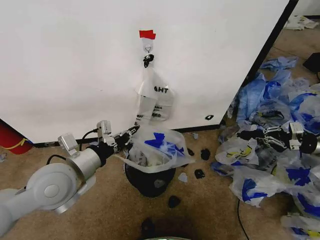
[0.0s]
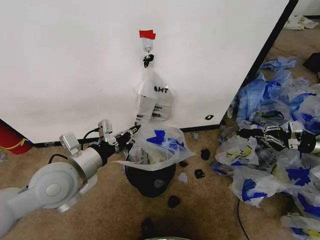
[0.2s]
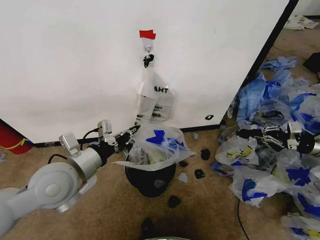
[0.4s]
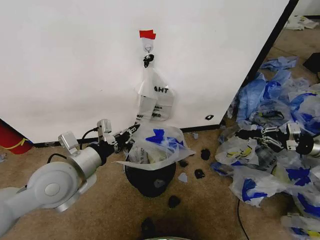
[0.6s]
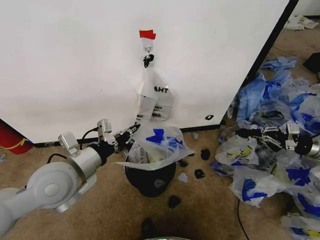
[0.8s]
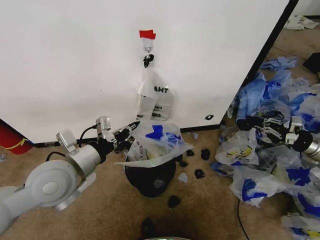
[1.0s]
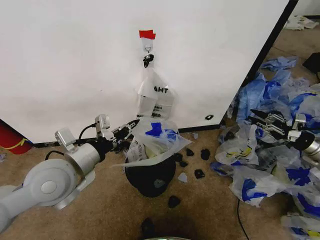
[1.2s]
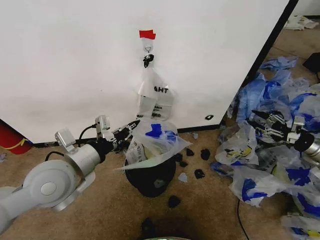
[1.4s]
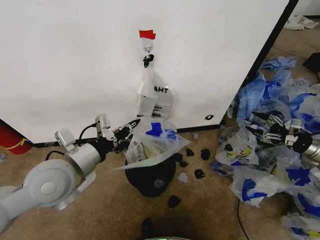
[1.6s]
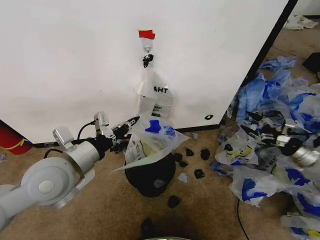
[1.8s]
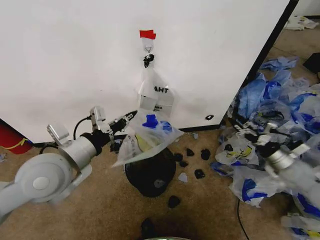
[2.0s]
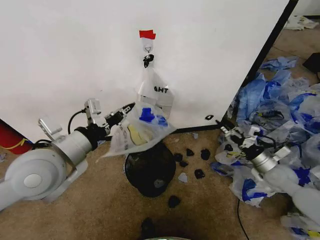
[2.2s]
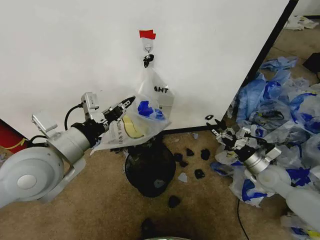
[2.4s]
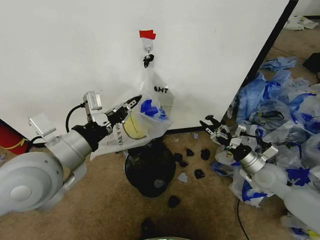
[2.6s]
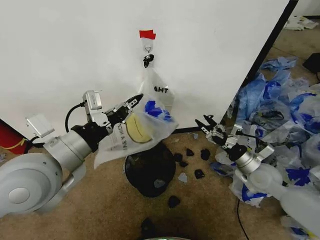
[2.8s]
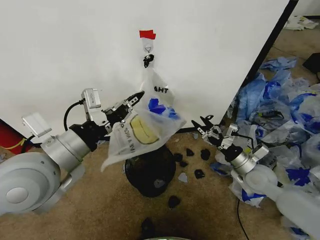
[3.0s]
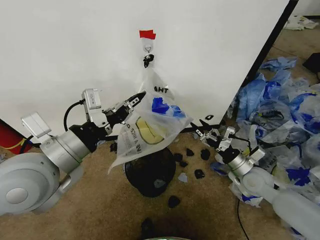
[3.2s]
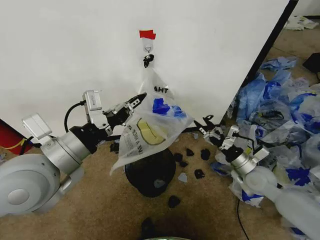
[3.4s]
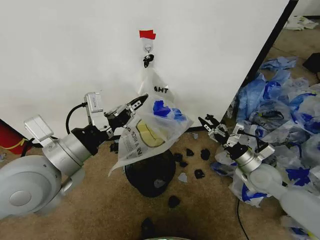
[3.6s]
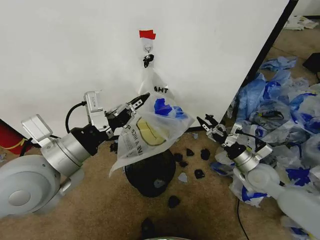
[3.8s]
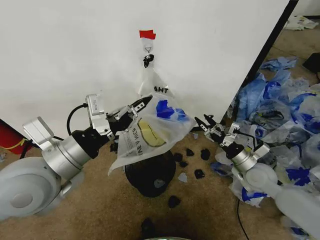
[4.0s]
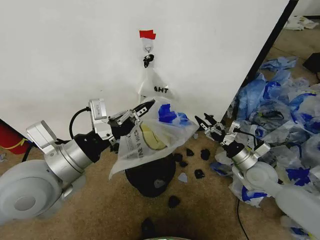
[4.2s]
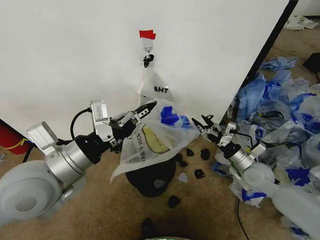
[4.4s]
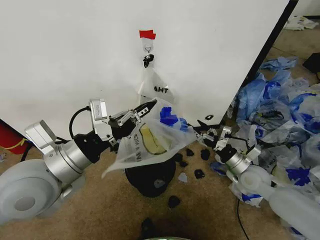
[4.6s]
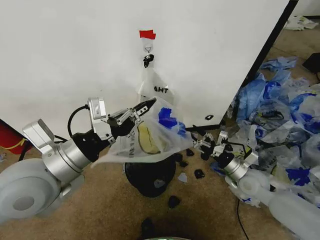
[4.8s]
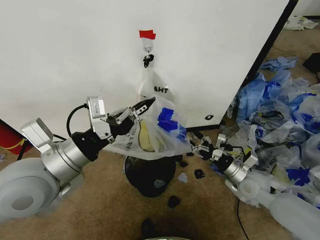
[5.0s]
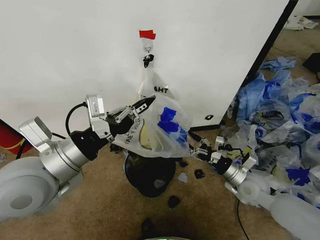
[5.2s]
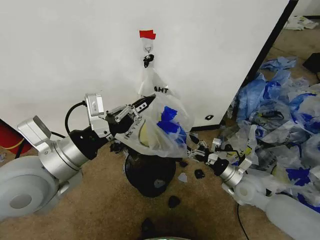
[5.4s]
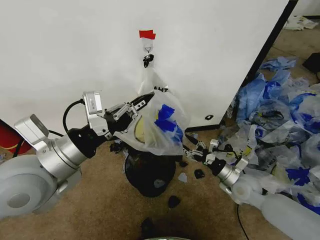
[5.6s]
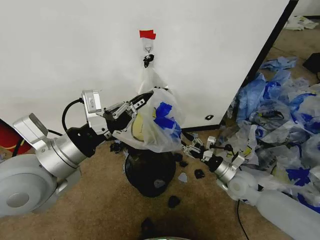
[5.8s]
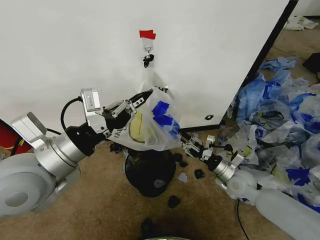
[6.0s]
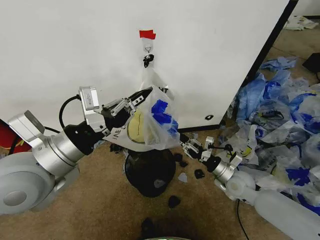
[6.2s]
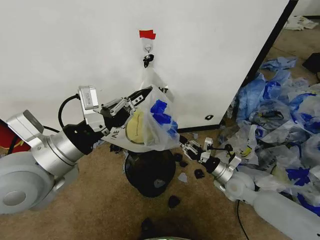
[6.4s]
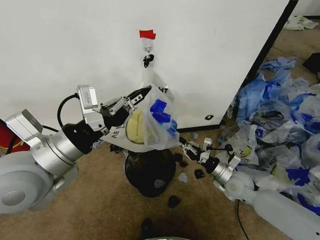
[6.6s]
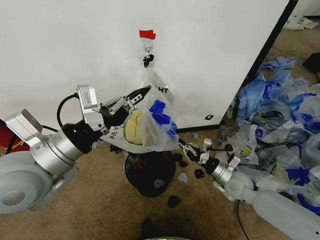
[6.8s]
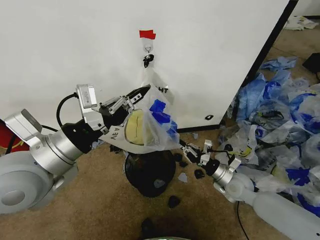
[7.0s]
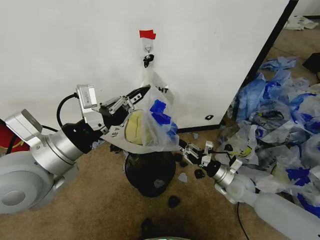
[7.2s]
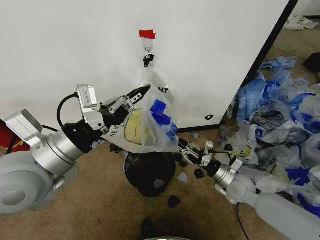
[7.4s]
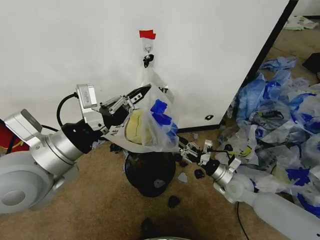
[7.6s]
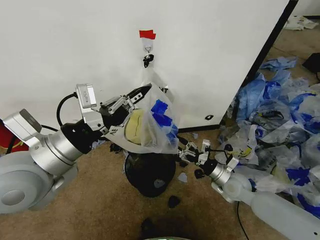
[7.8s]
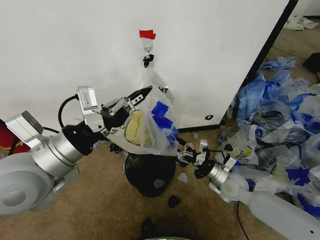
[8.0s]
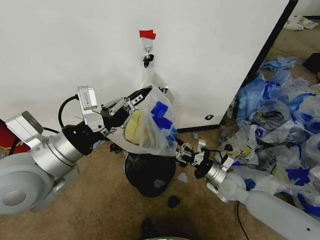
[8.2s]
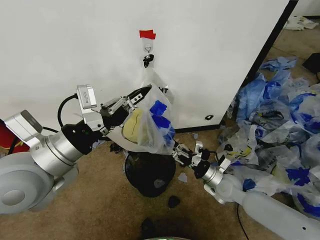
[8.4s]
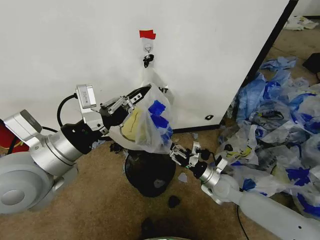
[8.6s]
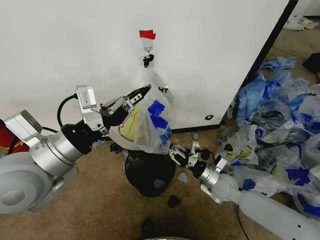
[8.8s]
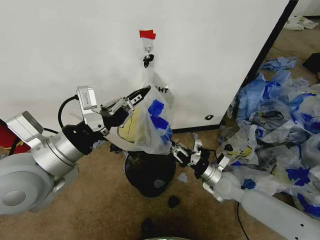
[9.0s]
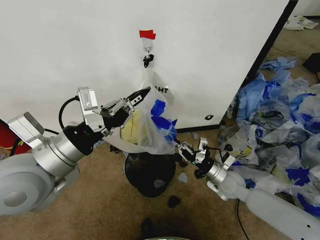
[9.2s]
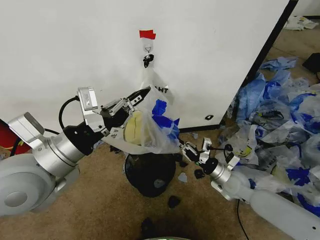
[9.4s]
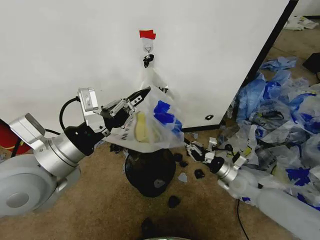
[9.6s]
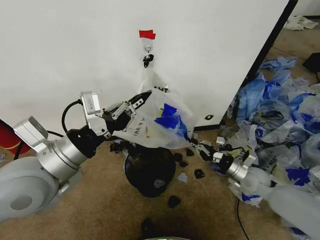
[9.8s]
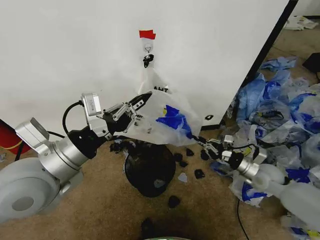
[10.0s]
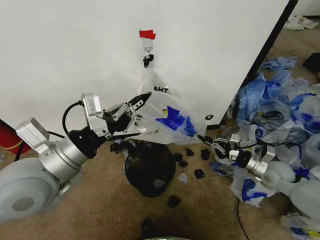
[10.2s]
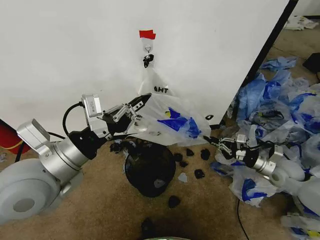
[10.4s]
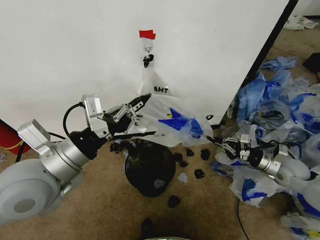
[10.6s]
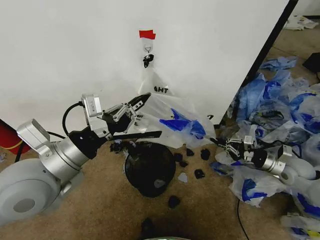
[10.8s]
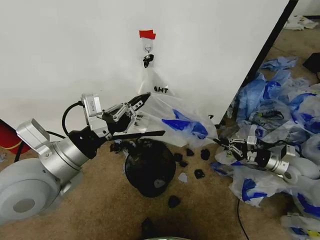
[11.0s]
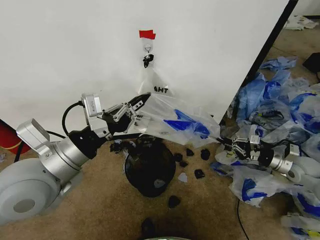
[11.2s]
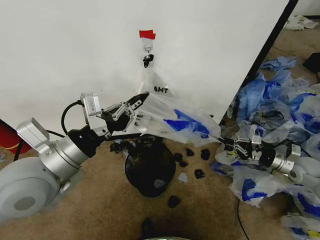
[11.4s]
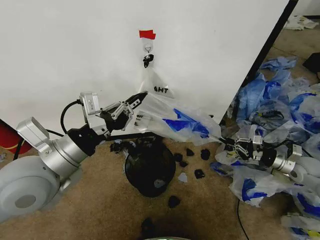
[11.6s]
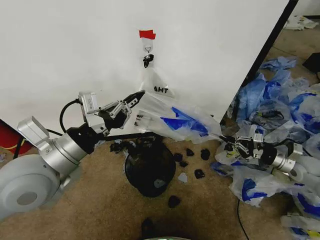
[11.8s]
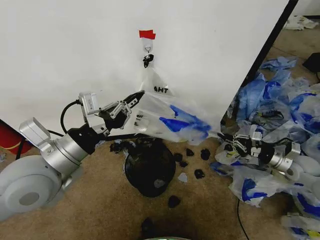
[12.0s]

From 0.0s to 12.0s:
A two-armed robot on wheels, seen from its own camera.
Task of the whole recording: Pick up the garbage bag from the wall and place it over the trash bin.
From 0.0s to 1.6s: The right gripper heads downward, covering some 5 cm, and opens.
From 1.6s to 3.0s: The right gripper is displaced to the left by roughly 25 cm. Meanwhile the left gripper travels upward by about 5 cm.
From 3.0s to 4.4s: The grippers move only a little.
From 4.4s to 6.0s: The right gripper changes place by roughly 5 cm, and closes.
From 6.0s to 7.6s: The right gripper closes, then opens again.
From 7.6s to 9.0s: The right gripper closes.
From 9.0s to 10.4s: The right gripper goes some 20 cm to the right.
From 10.4s to 12.0s: The right gripper heads to the right, covering some 5 cm.

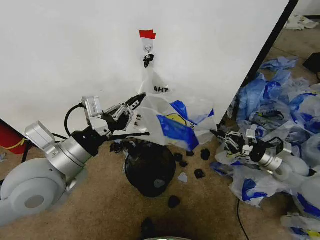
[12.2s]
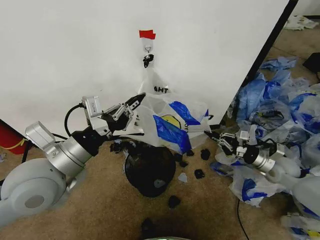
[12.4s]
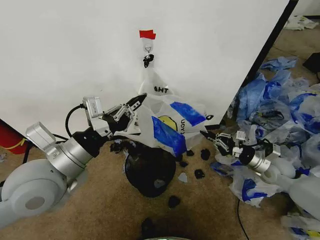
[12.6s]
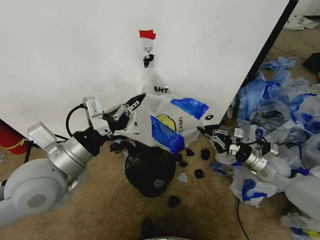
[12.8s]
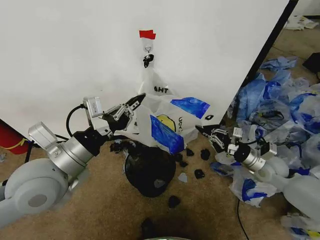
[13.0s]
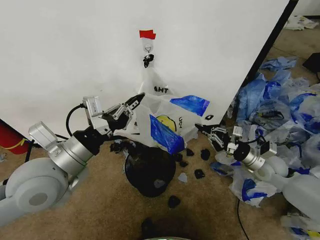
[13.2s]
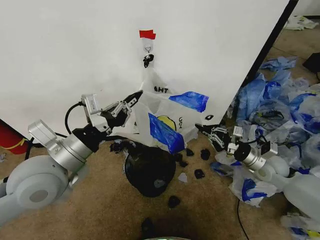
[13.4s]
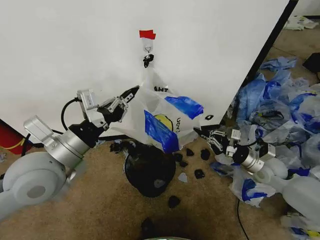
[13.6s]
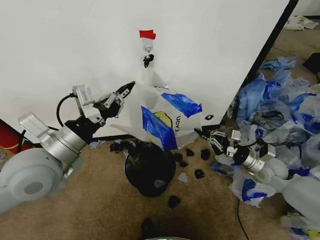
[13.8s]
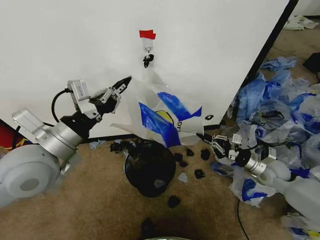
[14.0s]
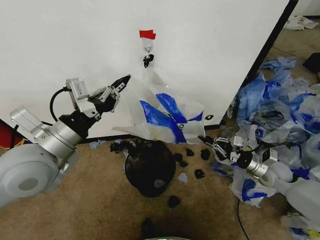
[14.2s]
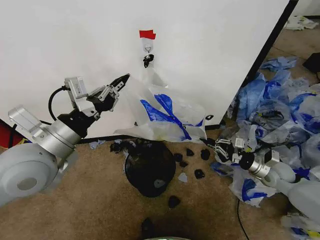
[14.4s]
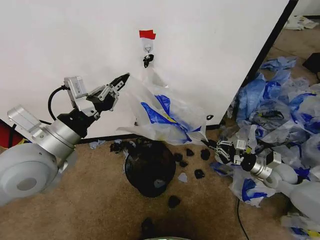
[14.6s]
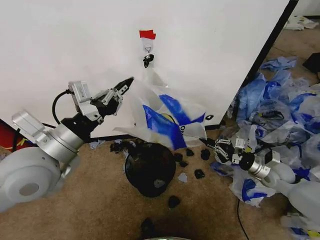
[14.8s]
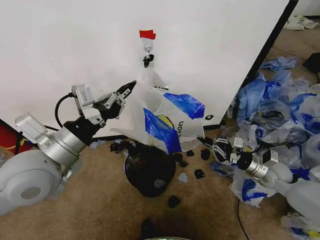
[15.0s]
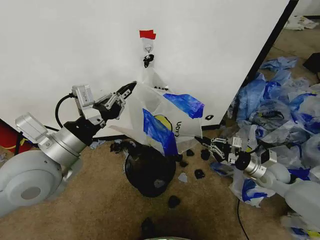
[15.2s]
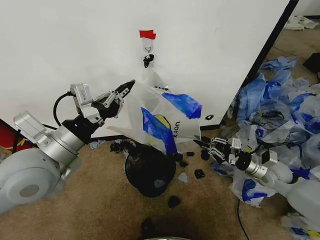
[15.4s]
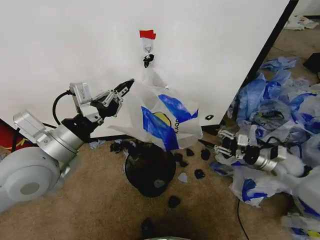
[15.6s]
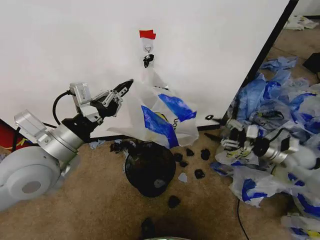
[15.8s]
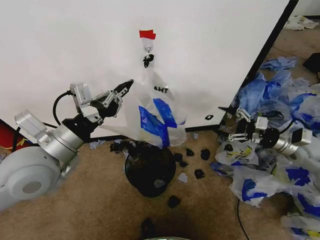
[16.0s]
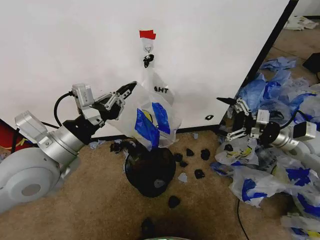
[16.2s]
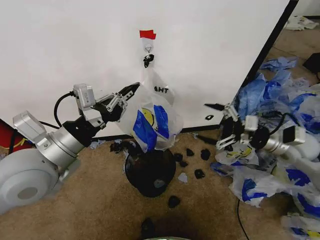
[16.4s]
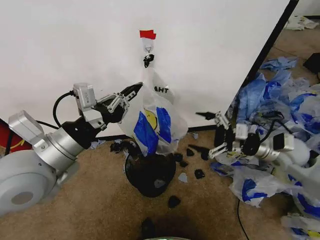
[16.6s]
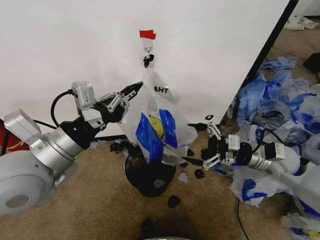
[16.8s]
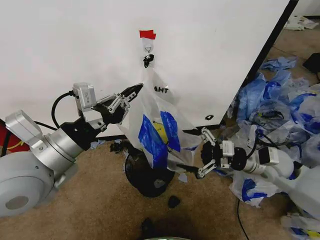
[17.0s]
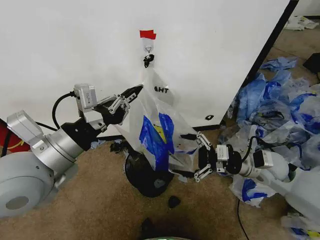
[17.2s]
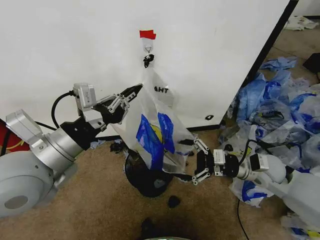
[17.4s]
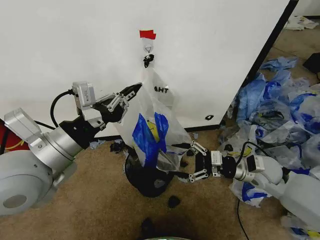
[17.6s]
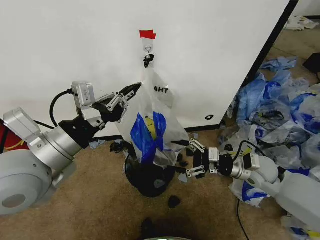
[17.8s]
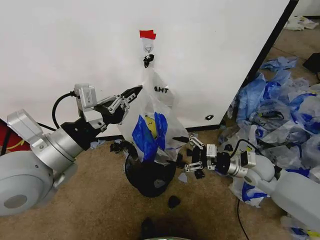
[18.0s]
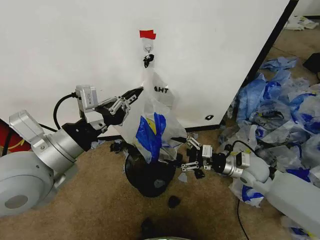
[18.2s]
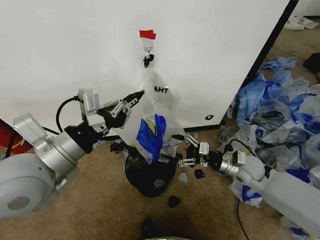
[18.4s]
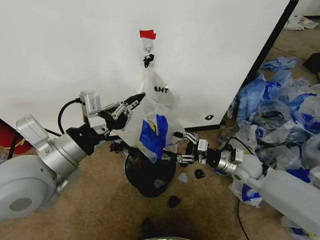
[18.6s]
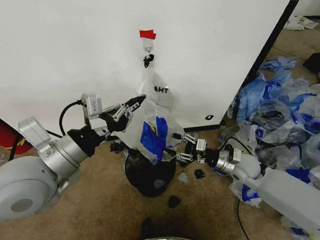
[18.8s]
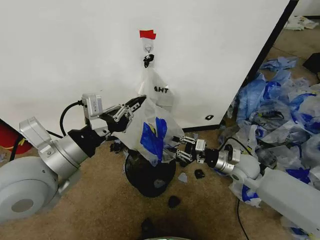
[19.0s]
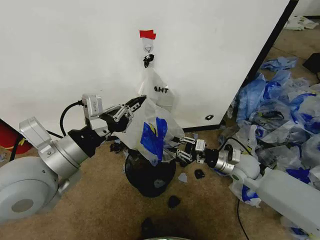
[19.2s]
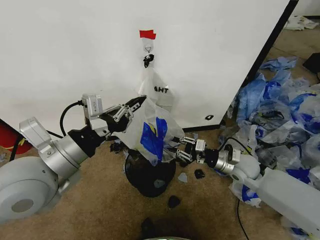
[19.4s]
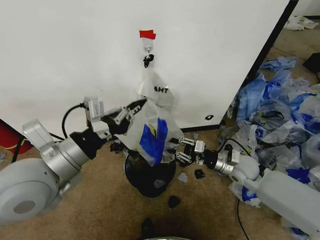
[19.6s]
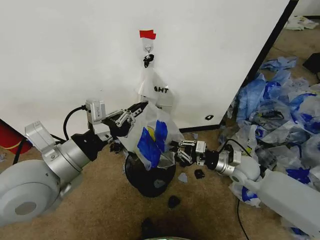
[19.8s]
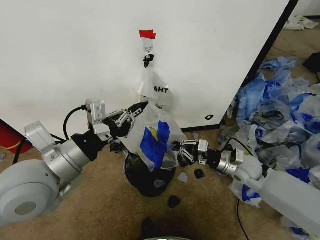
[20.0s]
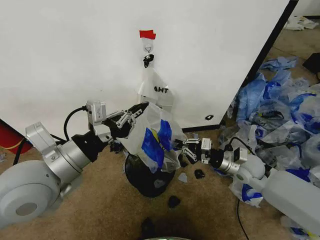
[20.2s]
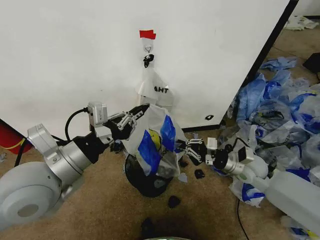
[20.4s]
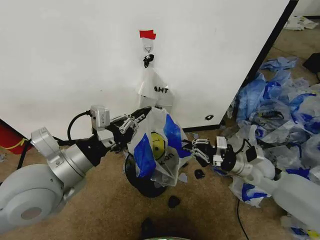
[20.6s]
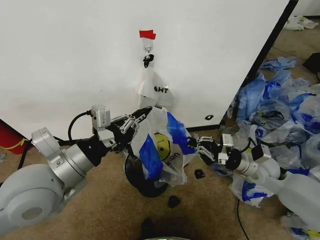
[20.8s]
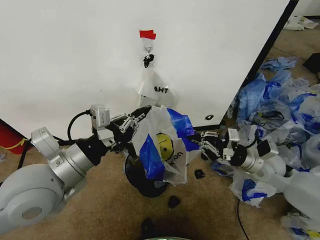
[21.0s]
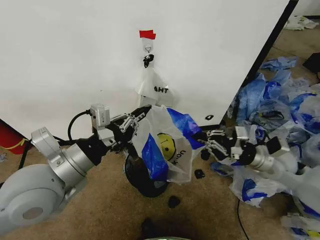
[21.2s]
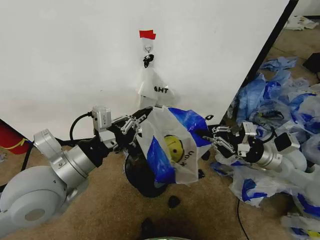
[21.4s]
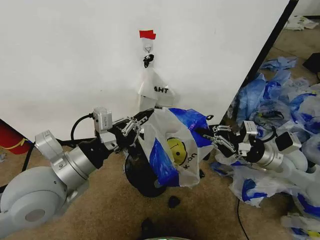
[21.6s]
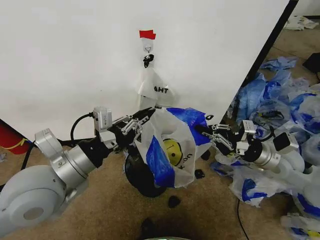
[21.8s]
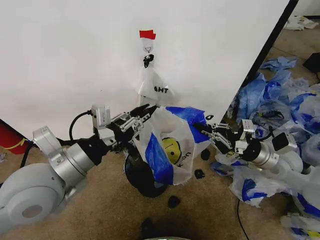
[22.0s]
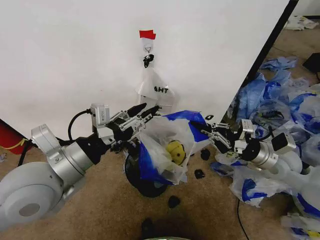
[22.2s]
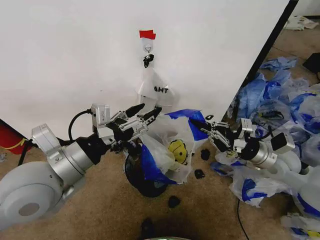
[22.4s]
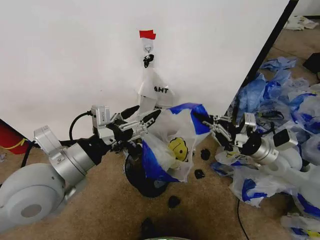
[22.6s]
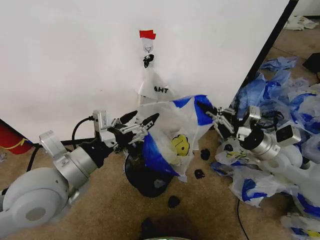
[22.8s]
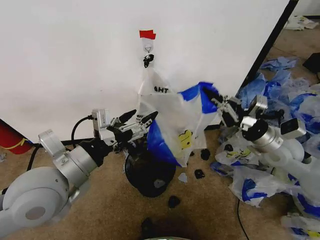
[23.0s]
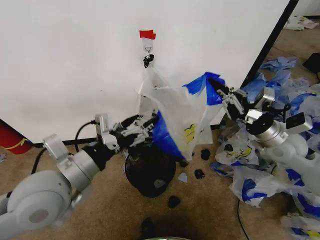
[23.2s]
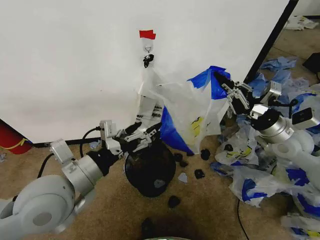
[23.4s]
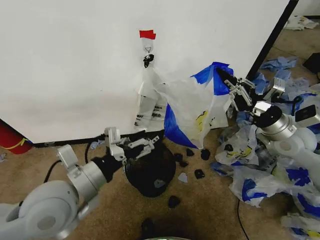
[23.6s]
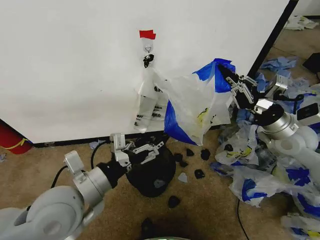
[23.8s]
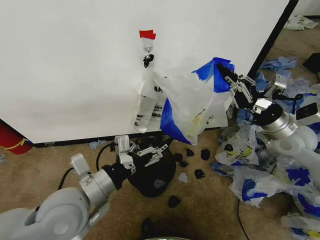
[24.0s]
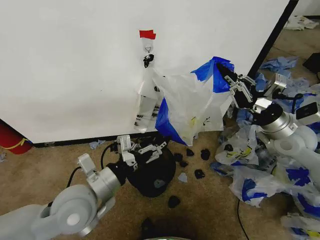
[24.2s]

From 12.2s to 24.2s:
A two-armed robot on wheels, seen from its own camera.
Task of the whole recording: Pick up the garbage bag from the wall and place it over the trash bin.
From 12.2s to 13.8s: The right gripper goes about 5 cm to the left.
From 13.8s to 15.2s: The grippers move only a little.
From 15.2s to 16.6s: The right gripper is displaced upward by roughly 10 cm, and opens.
From 16.6s to 18.2s: The right gripper heads downward and to the left, covering some 10 cm.
From 18.2s to 19.8s: The right gripper closes its fingers.
From 19.8s to 21.2s: The right gripper travels upward and to the right by approximately 10 cm.
From 21.2s to 22.6s: The left gripper opens up.
From 22.6s to 24.2s: The right gripper moves upward, about 5 cm; the left gripper shifts about 10 cm downward.
